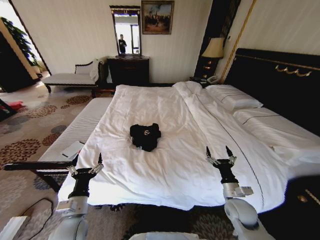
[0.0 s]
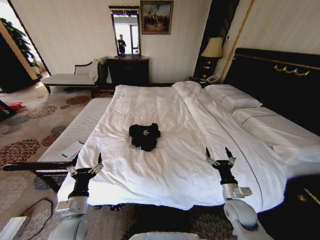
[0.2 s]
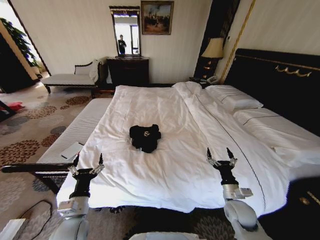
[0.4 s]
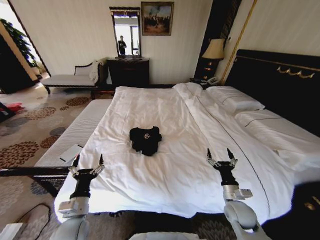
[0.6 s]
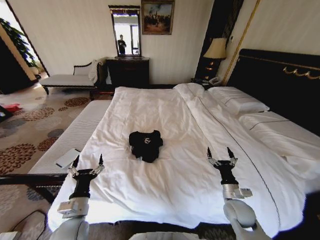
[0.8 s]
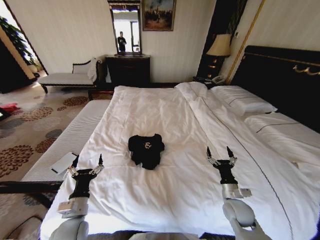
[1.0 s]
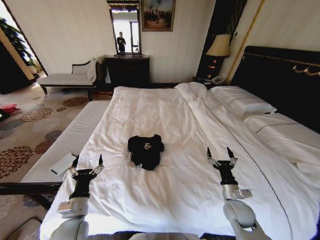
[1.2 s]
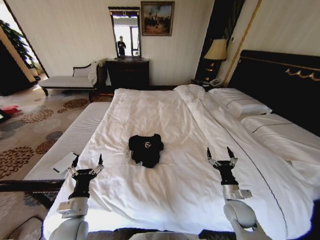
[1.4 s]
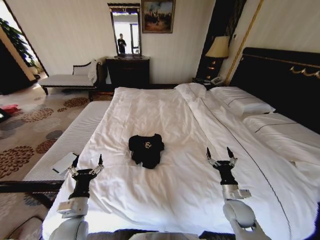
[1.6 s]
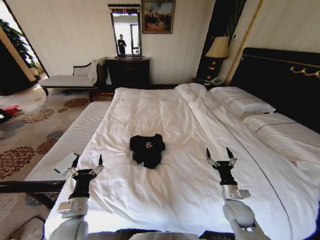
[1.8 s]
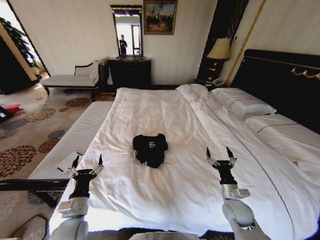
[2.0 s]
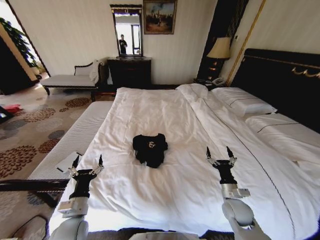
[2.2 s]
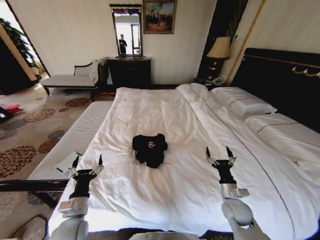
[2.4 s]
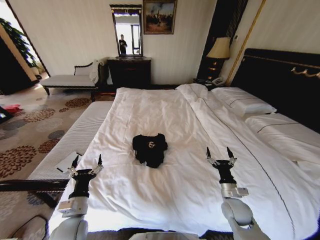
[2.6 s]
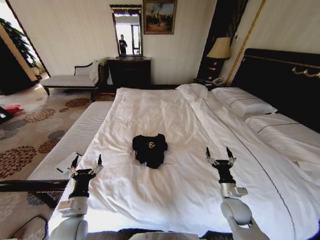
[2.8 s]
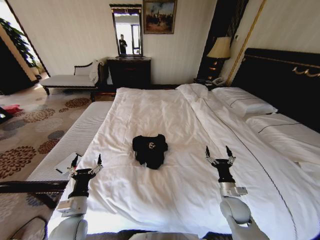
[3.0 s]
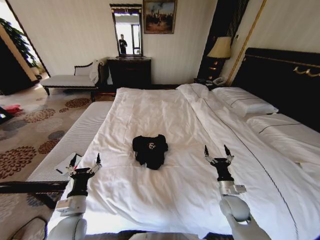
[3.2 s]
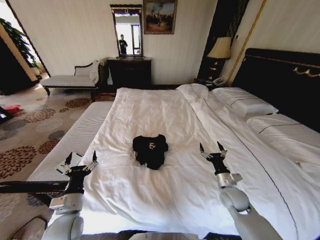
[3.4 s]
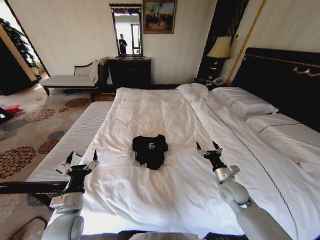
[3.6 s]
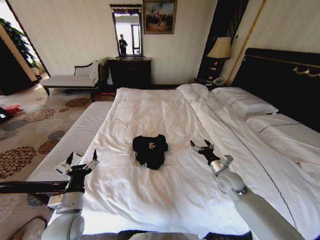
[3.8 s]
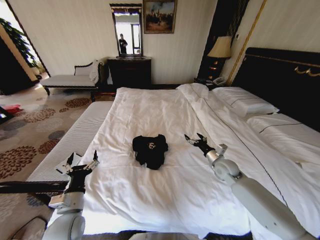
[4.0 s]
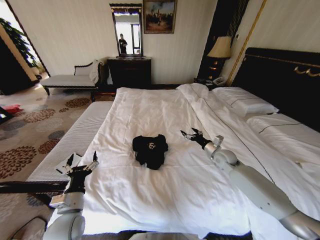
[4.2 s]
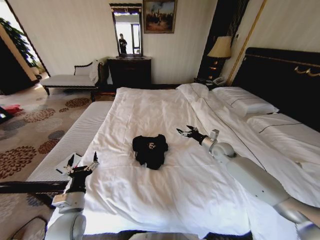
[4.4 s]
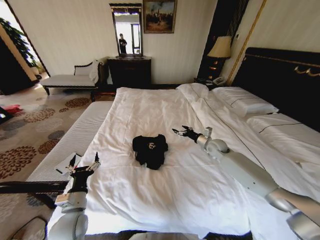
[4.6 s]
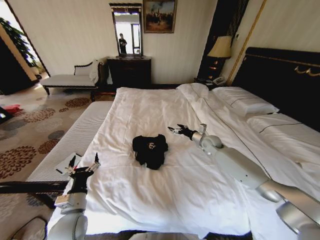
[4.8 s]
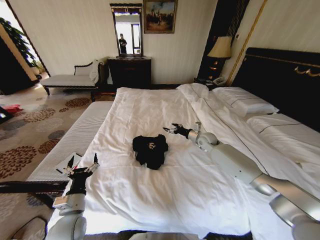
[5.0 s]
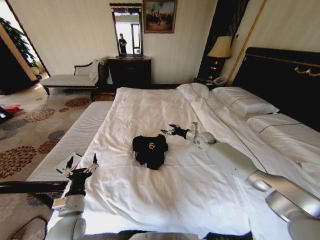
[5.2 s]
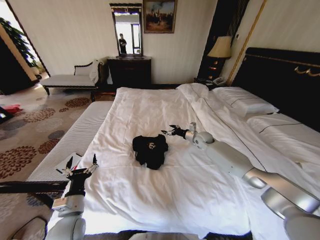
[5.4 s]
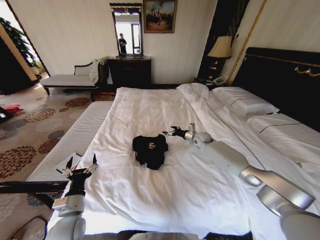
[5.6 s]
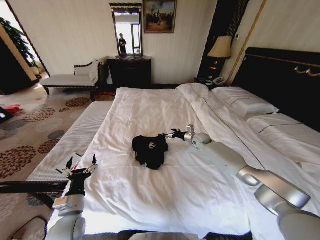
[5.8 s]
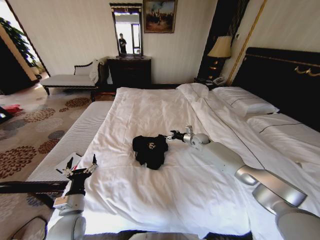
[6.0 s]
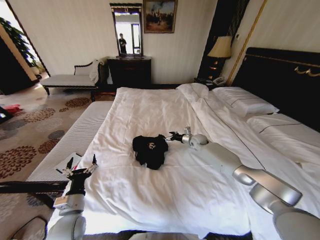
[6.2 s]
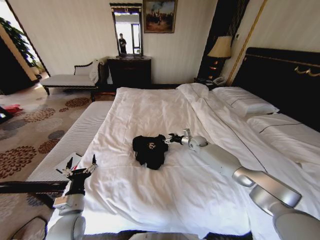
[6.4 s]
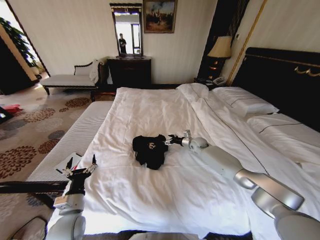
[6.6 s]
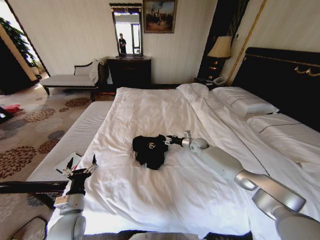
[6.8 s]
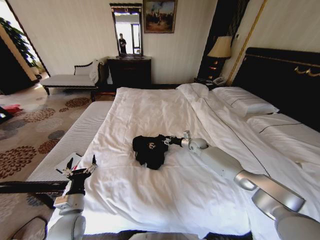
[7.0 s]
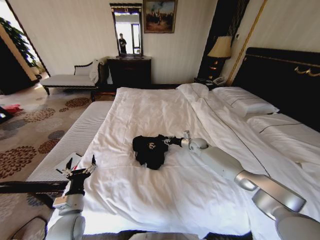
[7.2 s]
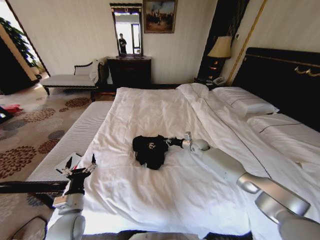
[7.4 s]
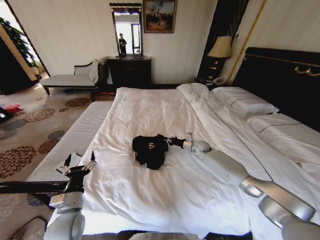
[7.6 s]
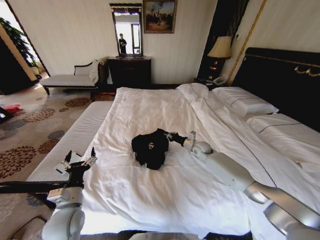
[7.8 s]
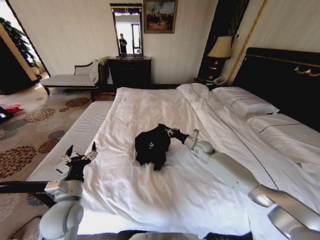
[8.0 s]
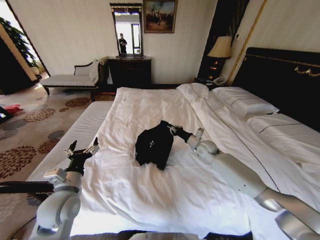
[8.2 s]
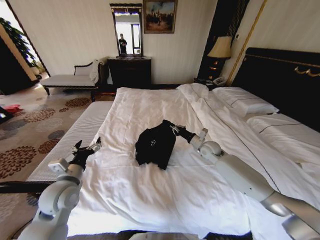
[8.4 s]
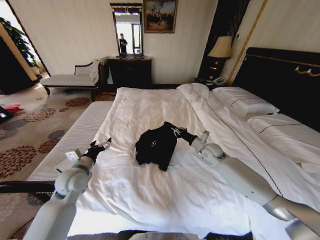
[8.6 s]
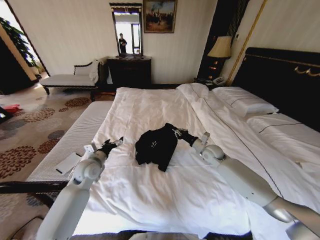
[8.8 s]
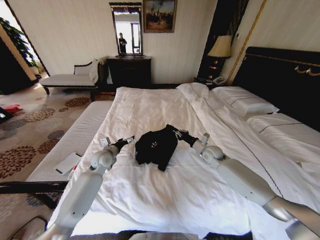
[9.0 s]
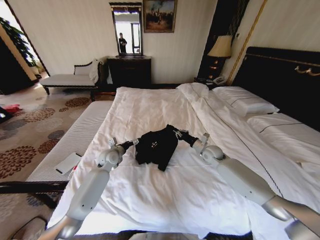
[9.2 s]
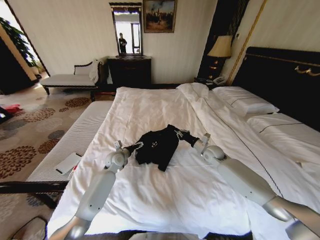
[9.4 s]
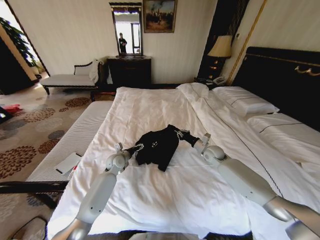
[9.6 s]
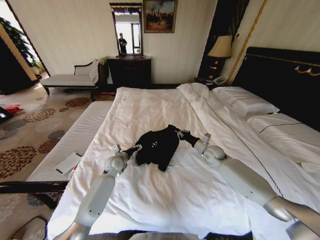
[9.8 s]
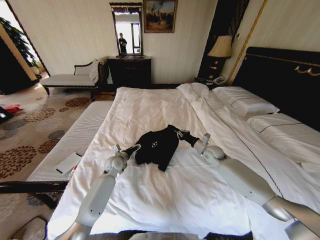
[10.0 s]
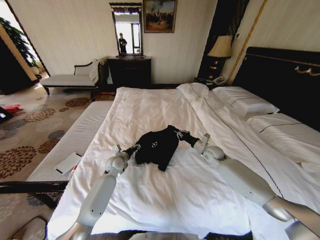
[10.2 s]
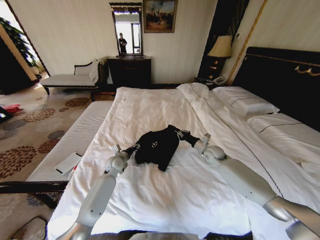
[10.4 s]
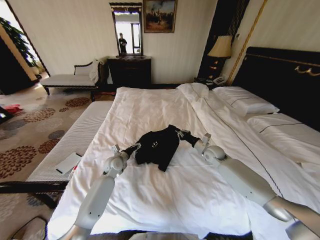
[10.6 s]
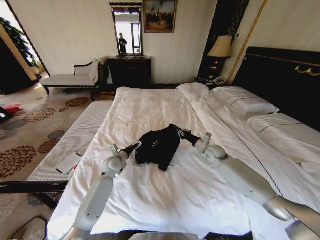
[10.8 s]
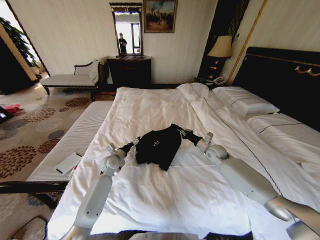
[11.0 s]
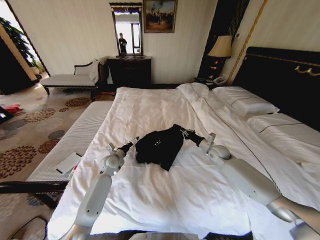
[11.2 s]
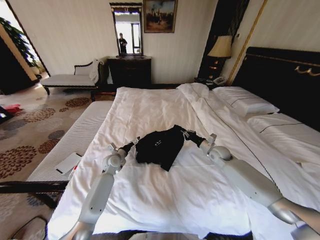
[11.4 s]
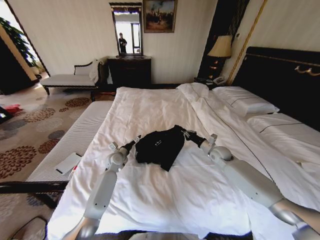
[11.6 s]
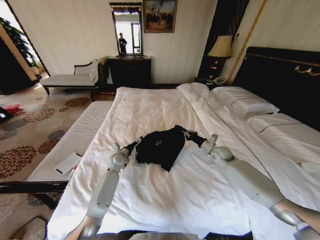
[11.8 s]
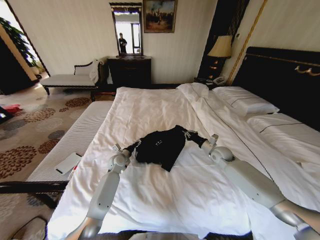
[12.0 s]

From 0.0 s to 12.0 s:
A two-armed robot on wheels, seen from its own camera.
Task of the whole recording: Fold the clothes on the bed.
From 1.6 s to 3.0 s: Both grippers stay about where they are.
From 3.0 s to 4.4 s: The right gripper travels forward and upward by some 25 cm.
From 4.4 s to 6.0 s: The right gripper travels forward and to the left by some 15 cm.
From 6.0 s to 7.6 s: The right gripper closes its fingers.
From 7.6 s to 9.0 s: The left gripper goes some 25 cm forward, while the right gripper shifts some 5 cm backward.
From 9.0 s to 10.4 s: The left gripper is displaced downward by approximately 5 cm, and closes its fingers.
From 10.4 s to 12.0 s: The grippers make only small movements.

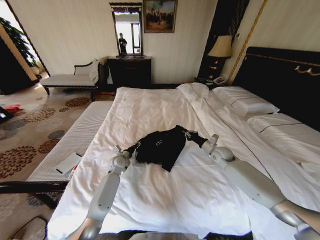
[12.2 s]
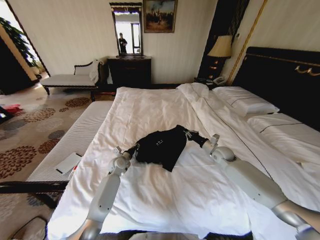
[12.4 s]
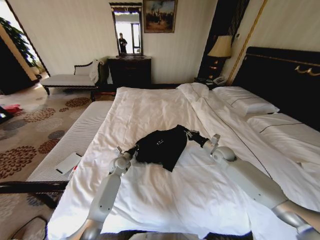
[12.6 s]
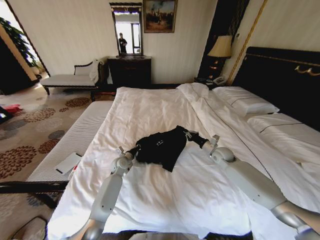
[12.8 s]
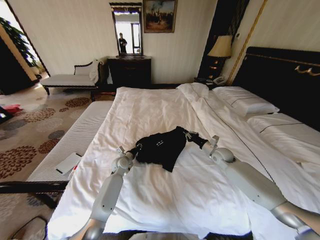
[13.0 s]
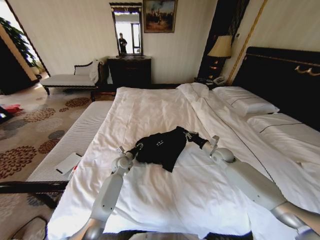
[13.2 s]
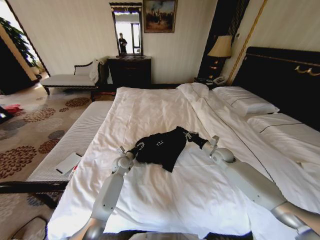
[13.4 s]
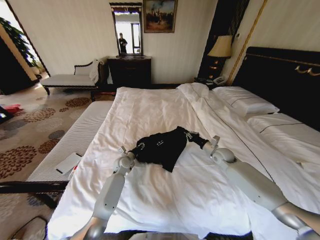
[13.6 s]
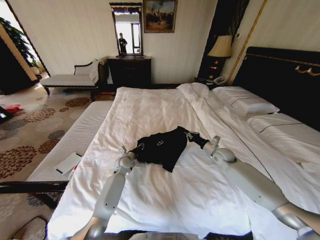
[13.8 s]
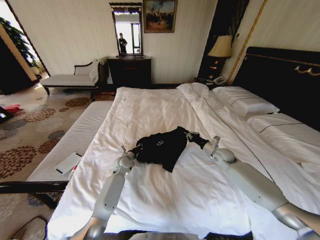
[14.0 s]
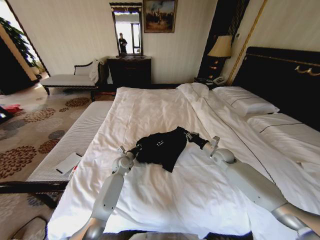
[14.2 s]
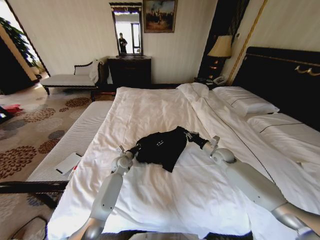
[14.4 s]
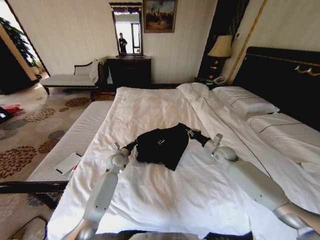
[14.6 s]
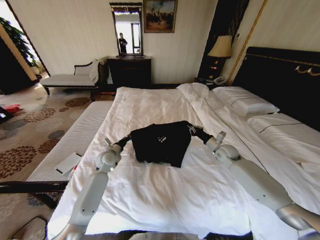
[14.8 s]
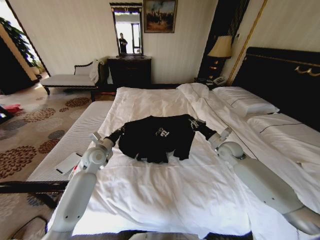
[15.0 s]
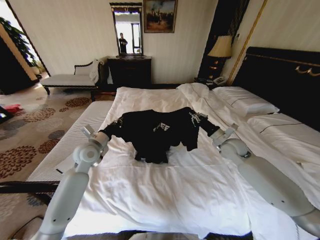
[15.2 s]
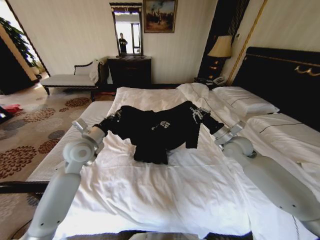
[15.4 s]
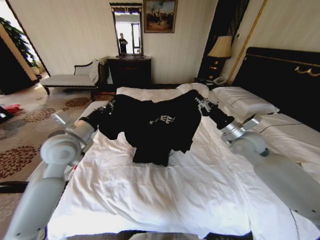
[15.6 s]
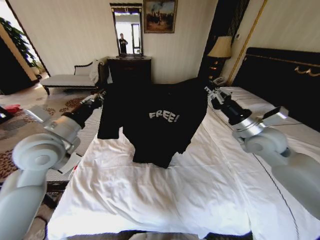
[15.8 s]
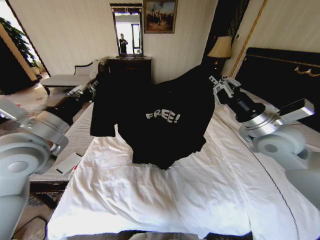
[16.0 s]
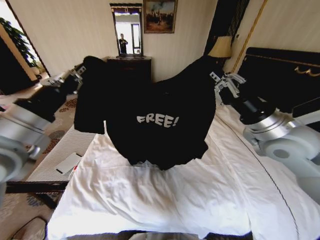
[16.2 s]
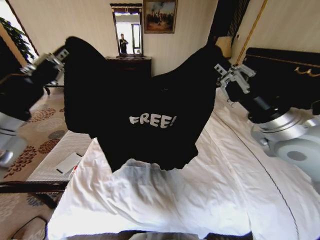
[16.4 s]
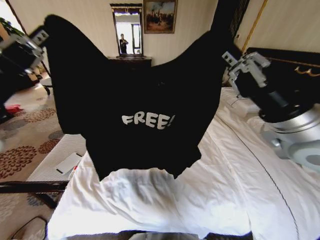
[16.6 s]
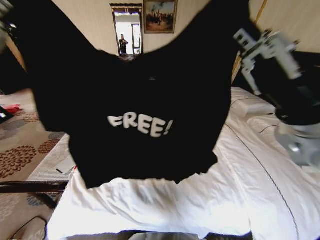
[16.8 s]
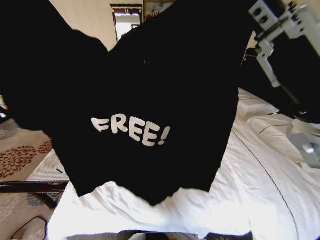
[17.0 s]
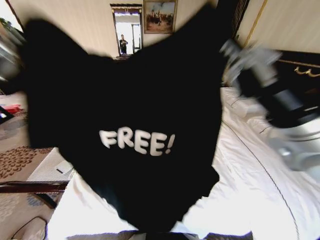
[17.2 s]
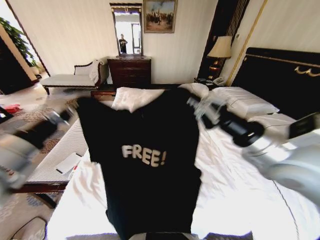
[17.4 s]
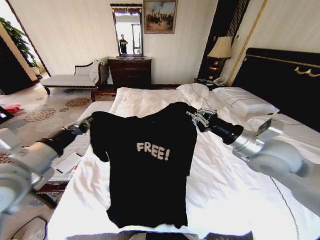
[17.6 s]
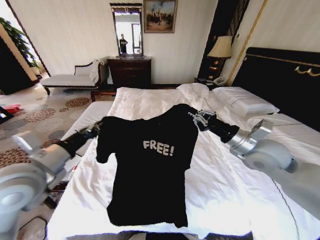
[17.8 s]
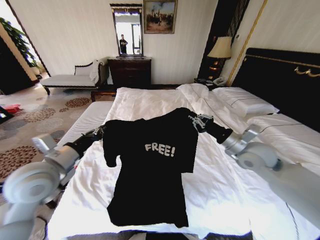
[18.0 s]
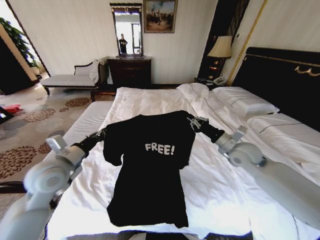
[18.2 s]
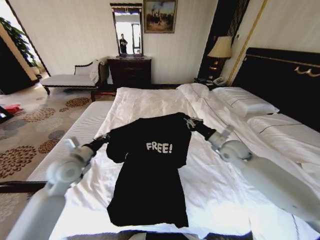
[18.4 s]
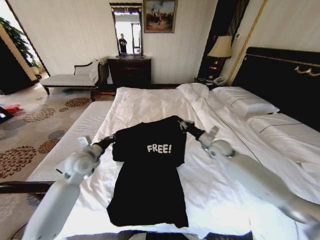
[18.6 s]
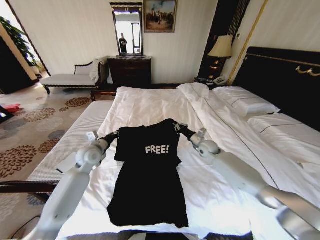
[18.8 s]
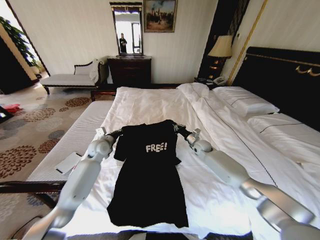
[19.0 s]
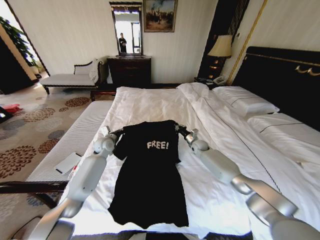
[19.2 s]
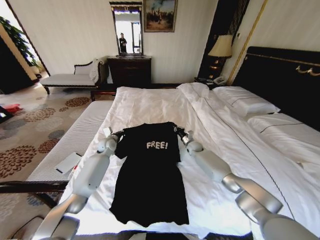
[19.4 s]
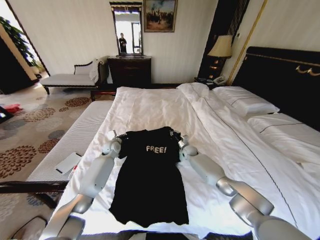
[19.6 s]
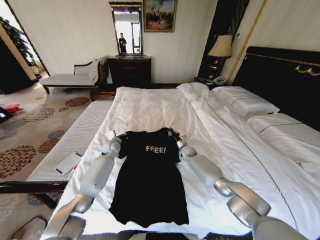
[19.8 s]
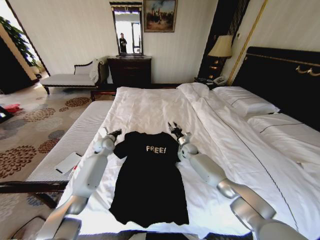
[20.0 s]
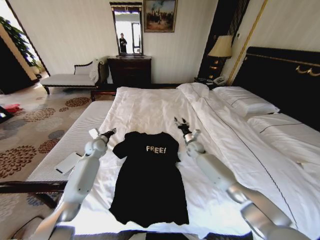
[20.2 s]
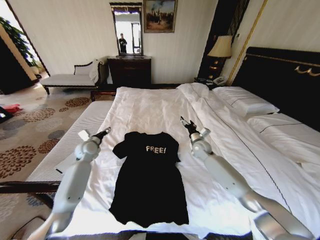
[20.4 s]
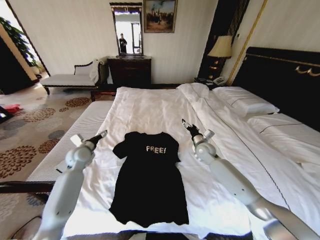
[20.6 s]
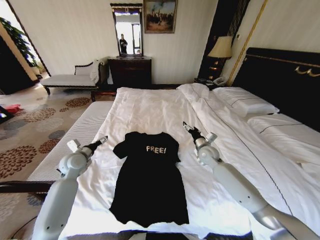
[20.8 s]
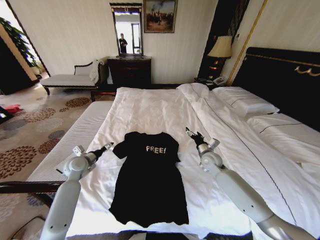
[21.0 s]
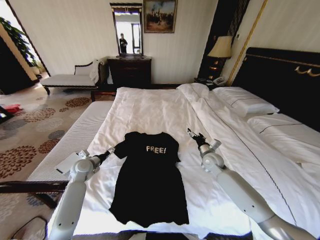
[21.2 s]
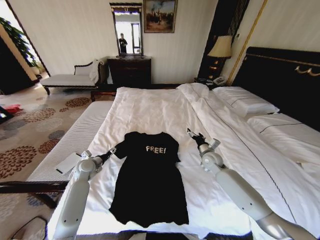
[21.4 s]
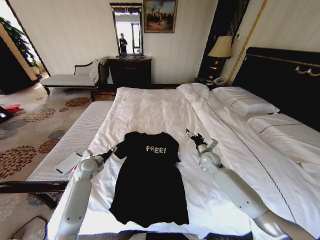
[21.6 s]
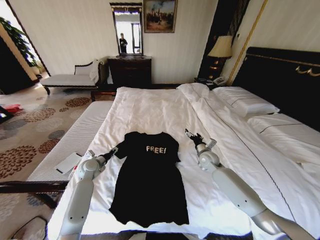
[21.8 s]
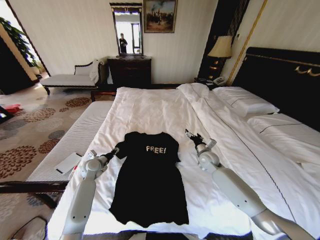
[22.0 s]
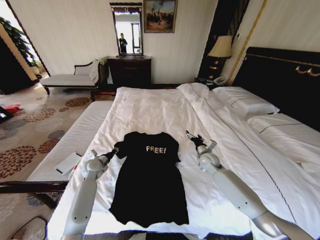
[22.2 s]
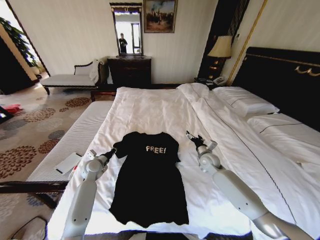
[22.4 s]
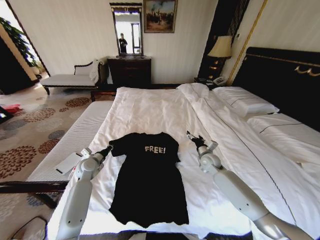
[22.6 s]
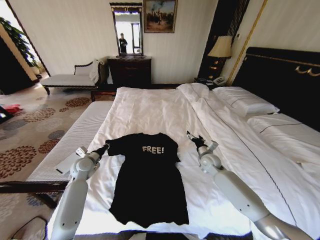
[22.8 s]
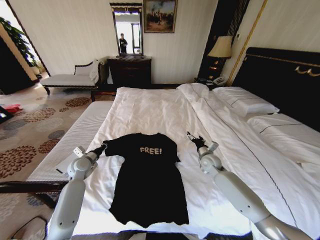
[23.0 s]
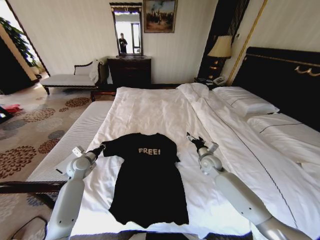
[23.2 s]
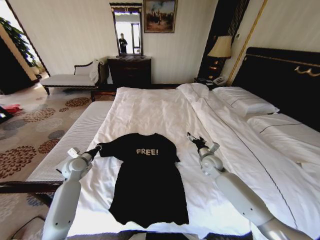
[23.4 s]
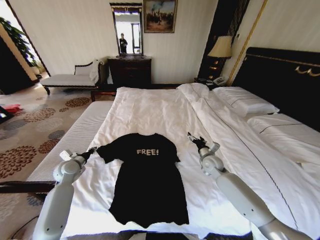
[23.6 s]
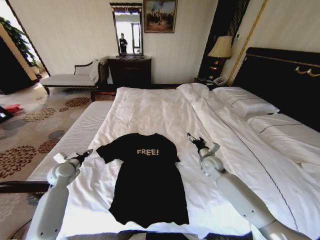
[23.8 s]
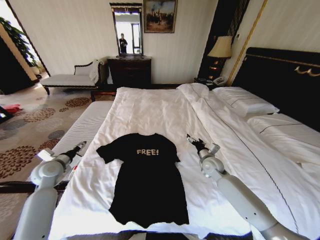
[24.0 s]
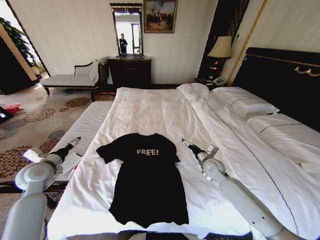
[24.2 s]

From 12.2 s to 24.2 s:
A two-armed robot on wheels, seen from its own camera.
Task of the whole recording: Fold the clothes on the bed.
From 12.2 s to 13.8 s: The grippers make only small movements.
From 13.8 s to 15.2 s: The right gripper moves upward, about 10 cm. Meanwhile the left gripper moves upward and to the left, some 20 cm.
From 15.2 s to 16.6 s: The two grippers go about 30 cm upward and backward.
From 16.6 s to 18.2 s: Both grippers move downward and forward, roughly 20 cm.
From 18.2 s to 19.8 s: The left gripper is displaced forward and downward by some 30 cm. Meanwhile the right gripper shifts about 35 cm downward, forward and to the left.
From 19.8 s to 21.2 s: The left gripper heads backward and to the left, covering approximately 15 cm, and opens up. Meanwhile the right gripper shifts roughly 15 cm backward, upward and to the right, and opens.
From 21.2 s to 22.6 s: The left gripper closes up.
From 22.6 s to 24.2 s: The left gripper heads to the left, upward and backward, covering roughly 15 cm, and opens up.
